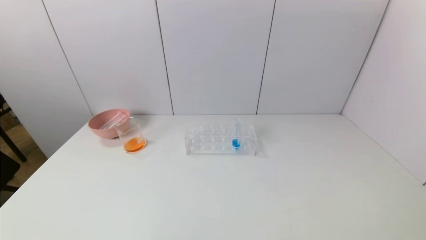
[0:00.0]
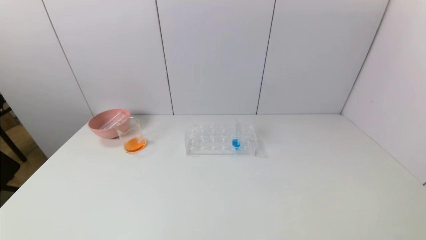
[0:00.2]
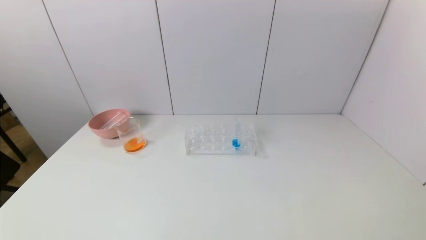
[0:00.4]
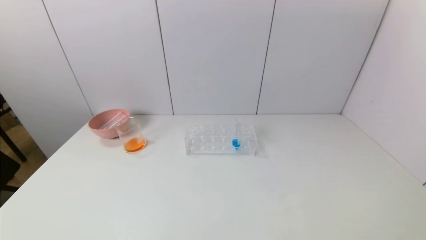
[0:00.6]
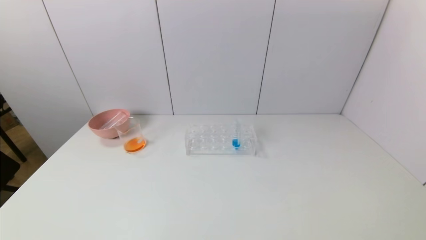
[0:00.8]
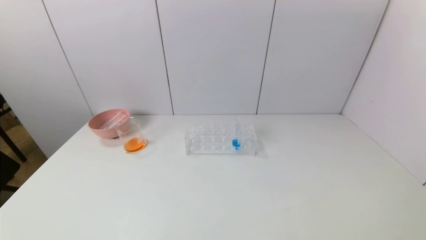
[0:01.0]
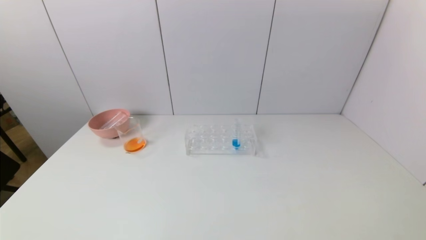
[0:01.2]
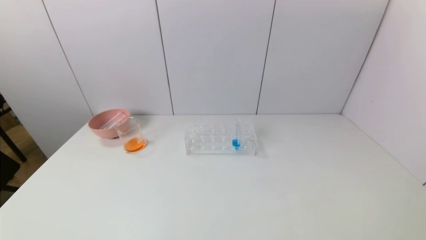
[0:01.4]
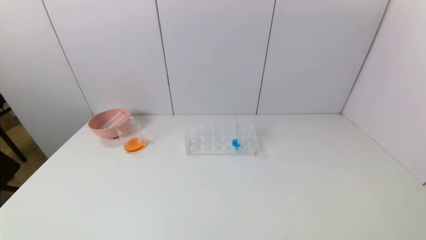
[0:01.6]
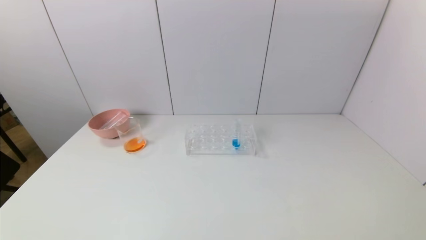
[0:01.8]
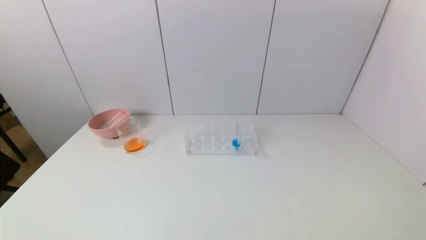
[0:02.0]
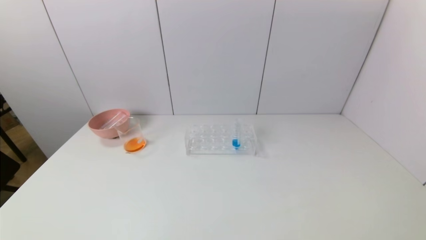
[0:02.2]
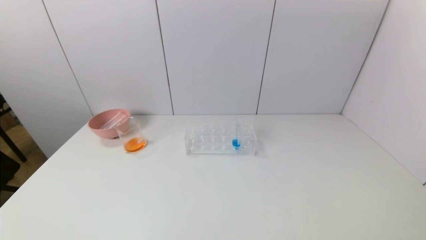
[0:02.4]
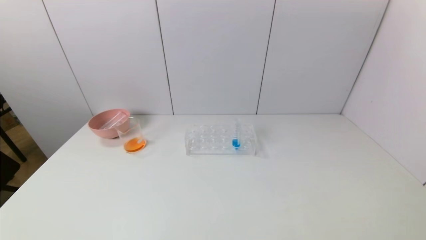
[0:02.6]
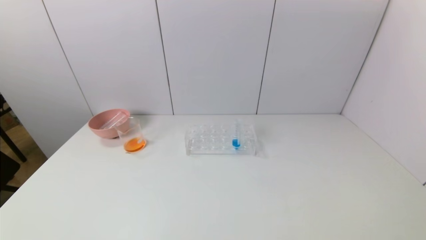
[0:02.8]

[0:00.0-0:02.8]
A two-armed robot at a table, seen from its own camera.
Task of the whole recording: pick up the test tube with yellow pigment and the test tube with red pigment by grippers and pour them into the beaker.
0:01.4 to 0:02.8: Neither gripper changes place.
